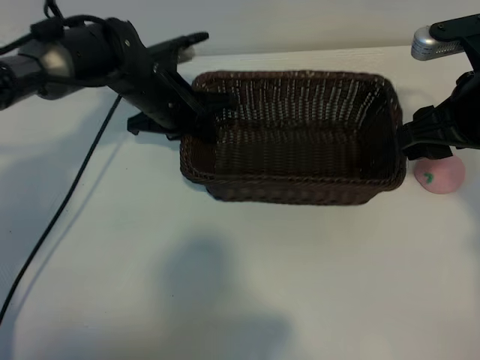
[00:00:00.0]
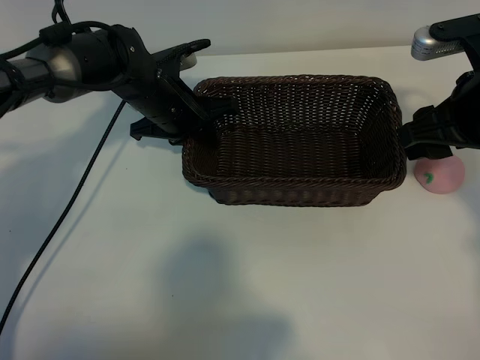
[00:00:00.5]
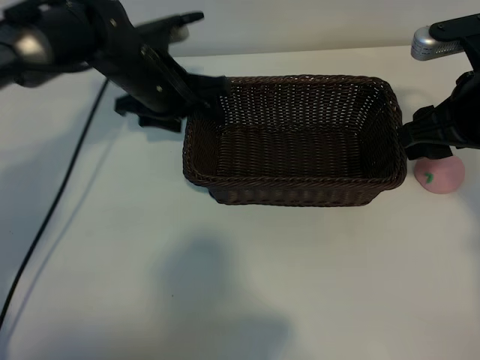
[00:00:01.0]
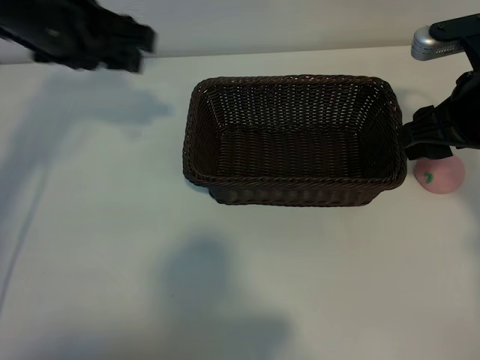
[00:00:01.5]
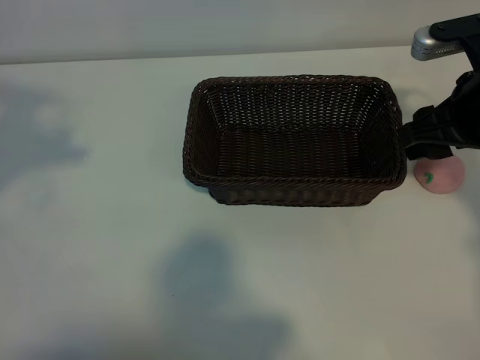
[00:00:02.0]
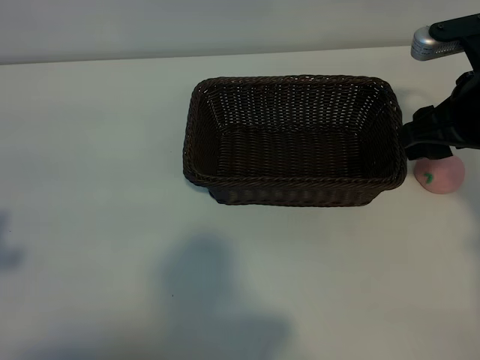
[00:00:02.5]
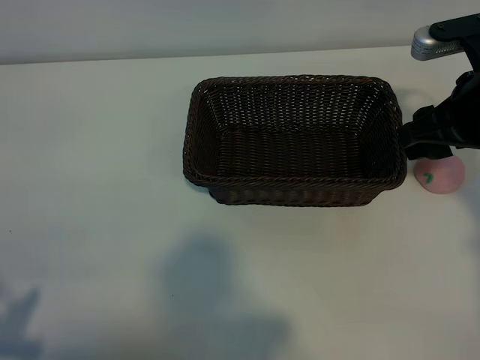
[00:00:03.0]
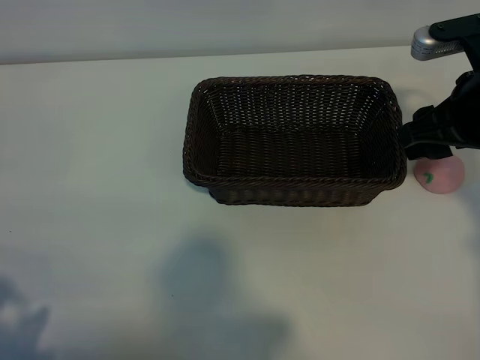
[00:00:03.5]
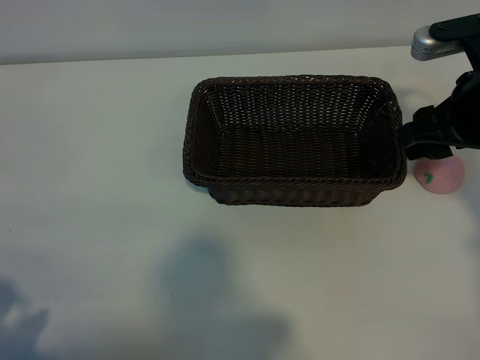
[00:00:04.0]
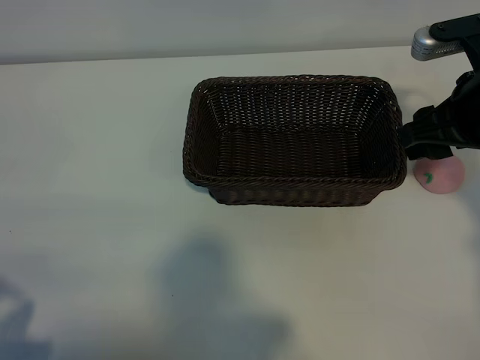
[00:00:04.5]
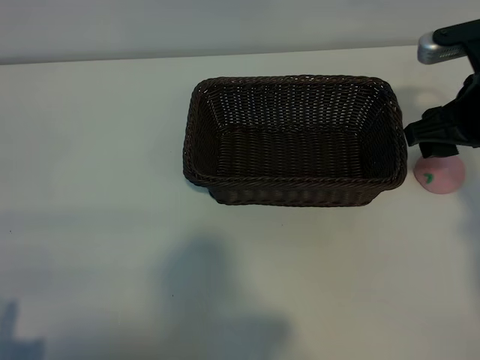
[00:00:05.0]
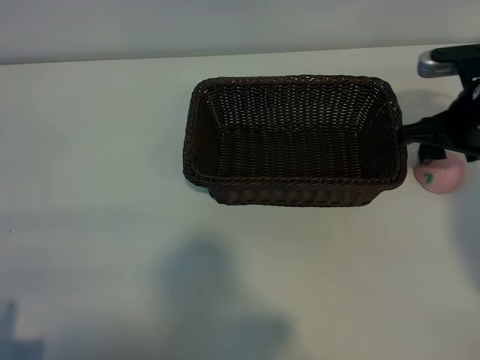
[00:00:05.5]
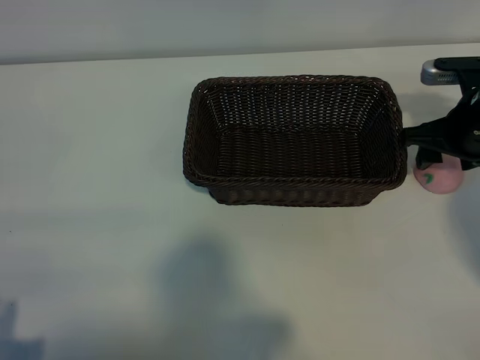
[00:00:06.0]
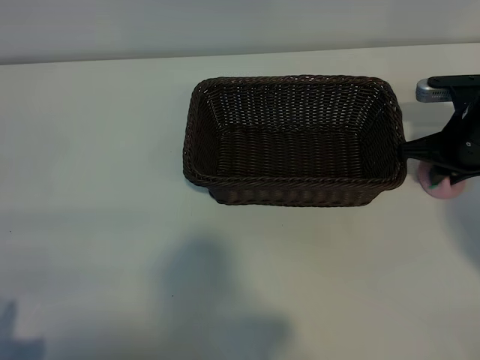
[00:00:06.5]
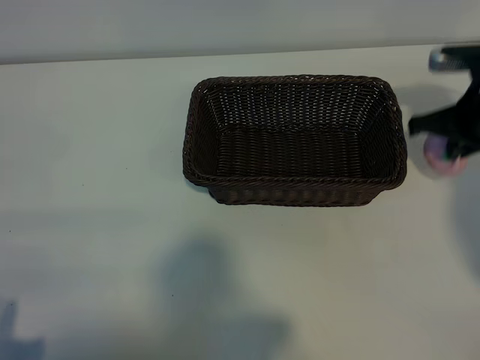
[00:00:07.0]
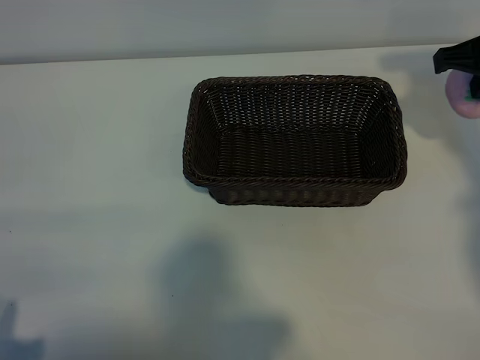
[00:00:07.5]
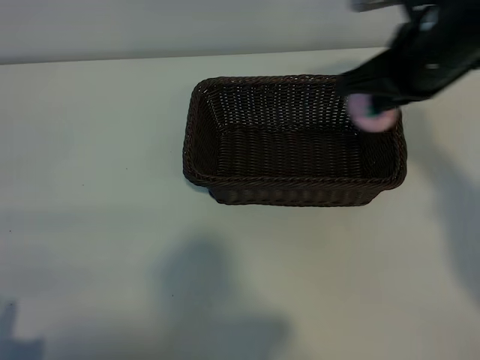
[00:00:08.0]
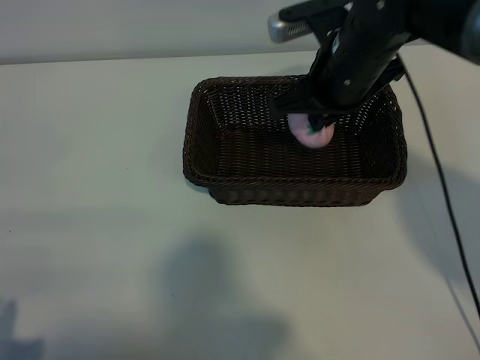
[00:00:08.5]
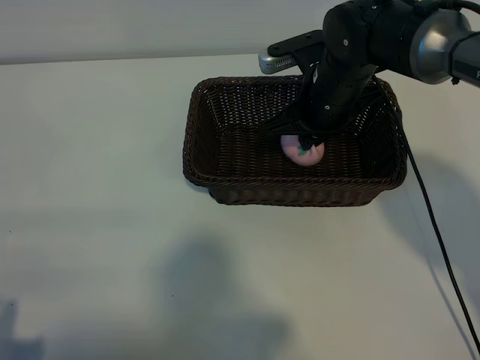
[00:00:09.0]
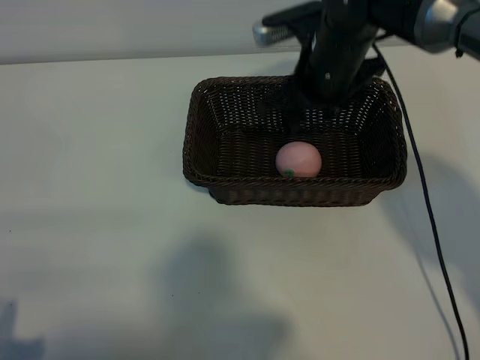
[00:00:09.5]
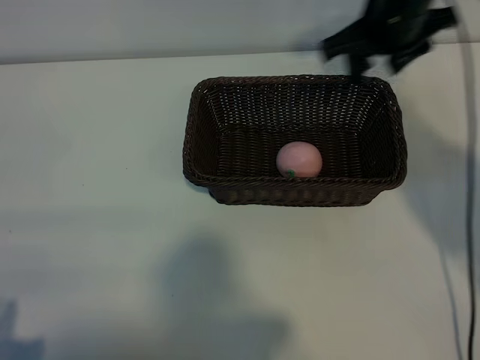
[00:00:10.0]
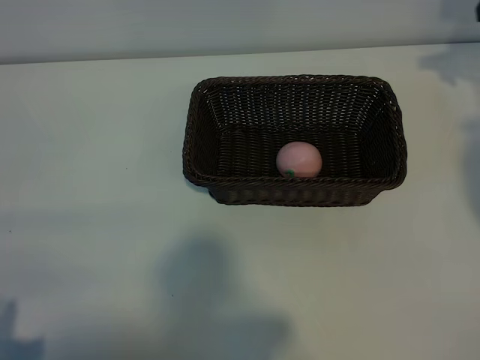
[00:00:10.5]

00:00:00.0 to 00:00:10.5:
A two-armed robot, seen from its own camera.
Task of the whole recording: pick up the peach and put it into the basket.
Step, 00:00:01.5 to 00:00:06.5: Grasp the peach with right gripper.
Step, 00:00:07.0 to 00:00:09.0: Place the peach in the basket with right gripper.

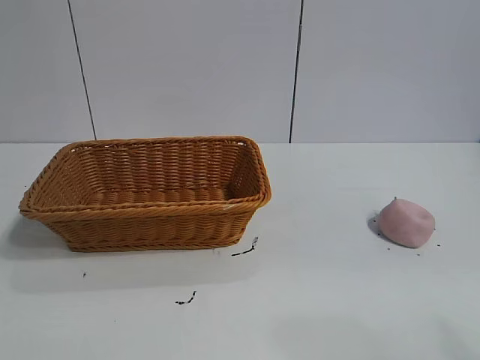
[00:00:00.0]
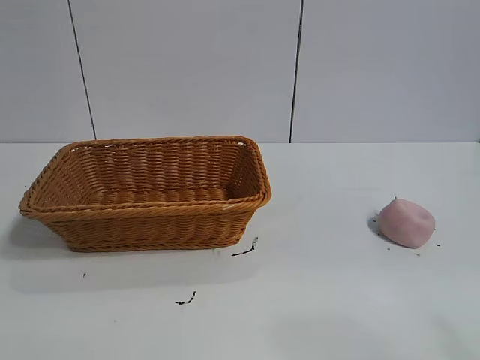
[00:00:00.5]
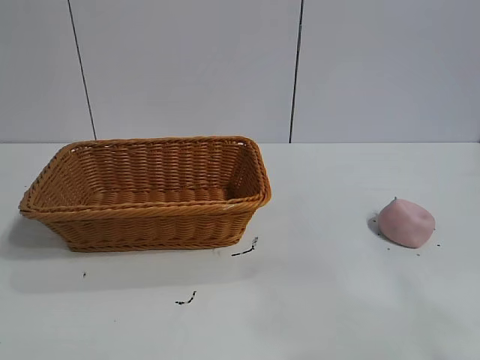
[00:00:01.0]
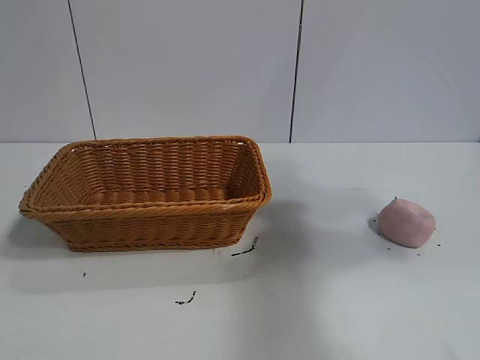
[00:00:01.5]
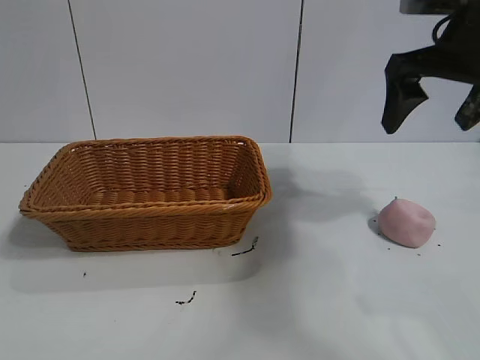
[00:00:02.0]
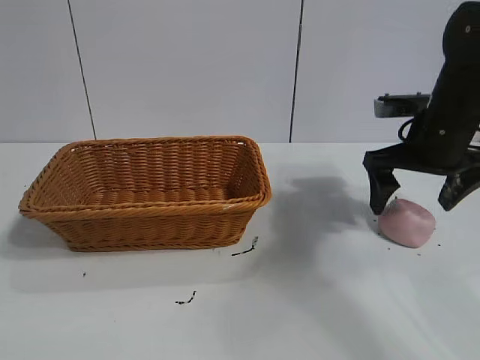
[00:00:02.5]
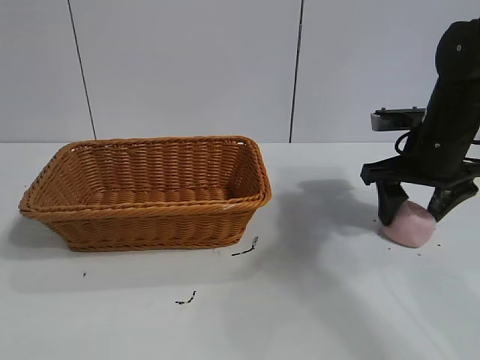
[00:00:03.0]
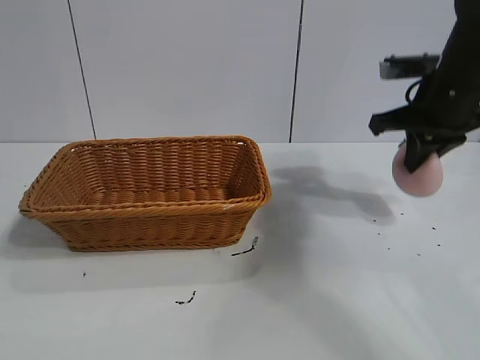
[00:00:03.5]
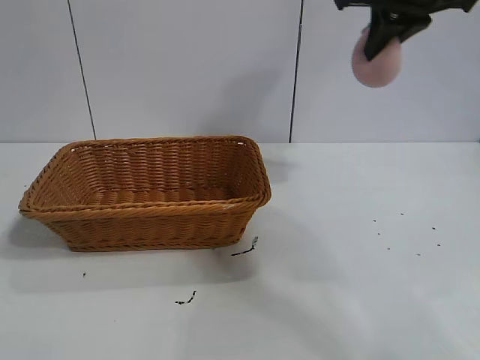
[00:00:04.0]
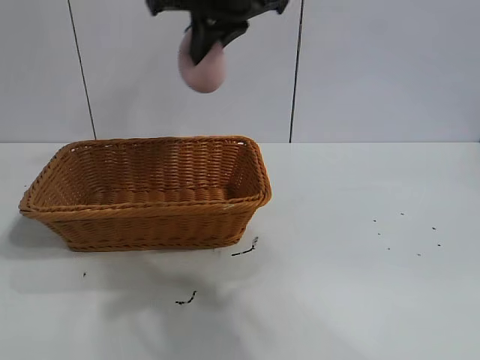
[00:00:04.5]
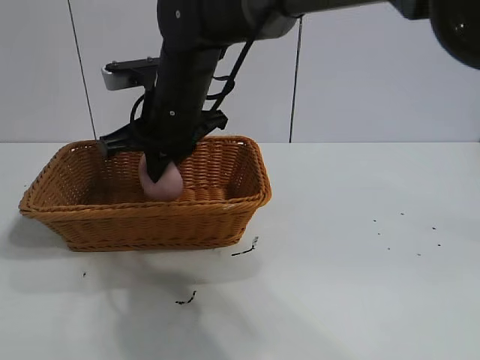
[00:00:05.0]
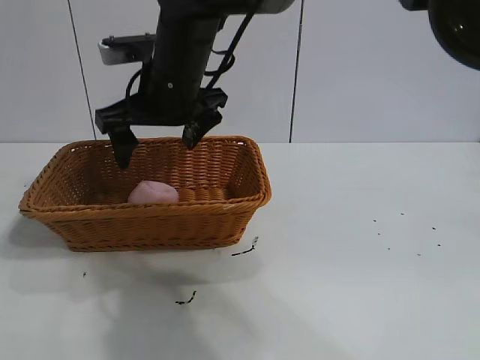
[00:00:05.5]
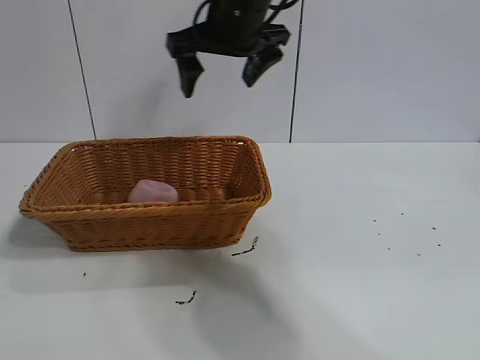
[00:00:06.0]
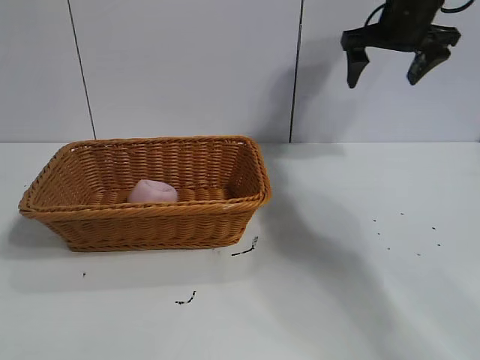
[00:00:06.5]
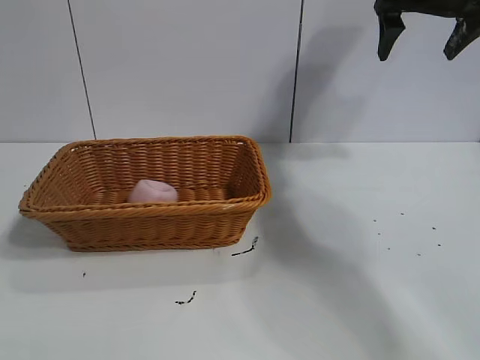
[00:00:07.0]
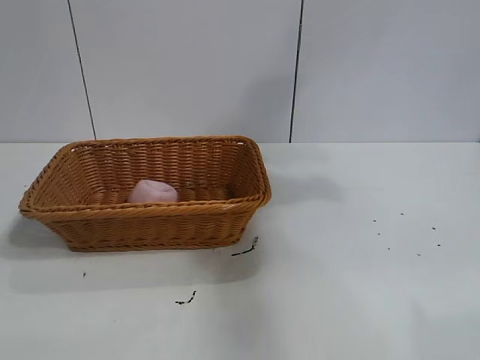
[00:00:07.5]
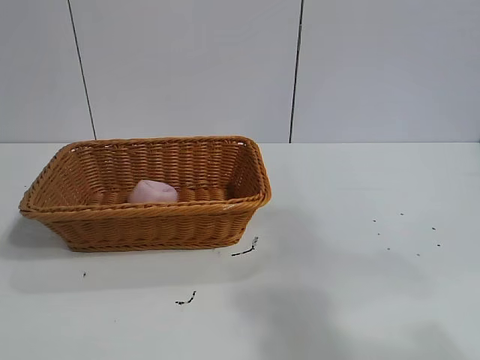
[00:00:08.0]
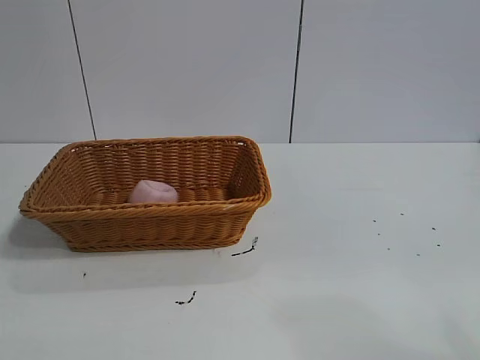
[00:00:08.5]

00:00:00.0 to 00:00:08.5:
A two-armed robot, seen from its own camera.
Task of the whole recording: pick up the peach and put it into the basket.
Step, 00:00:01.0 to 00:00:03.0: Grasp the peach with right gripper.
Step, 00:00:03.5 to 00:00:05.0: Place the peach in the basket with right gripper.
